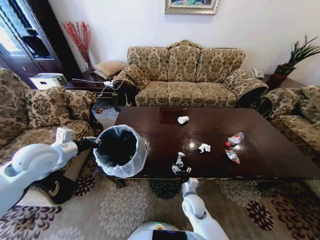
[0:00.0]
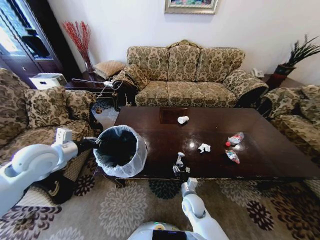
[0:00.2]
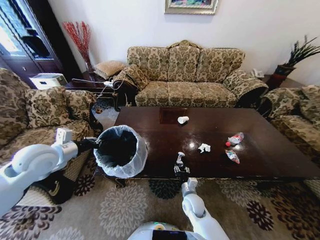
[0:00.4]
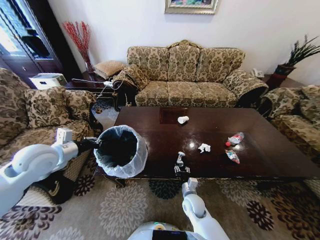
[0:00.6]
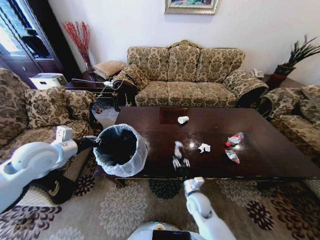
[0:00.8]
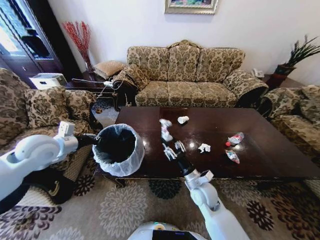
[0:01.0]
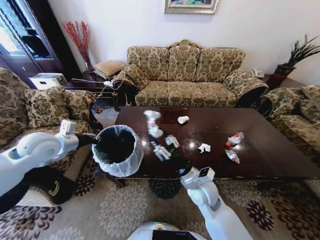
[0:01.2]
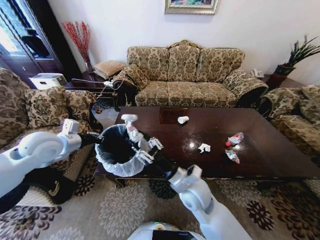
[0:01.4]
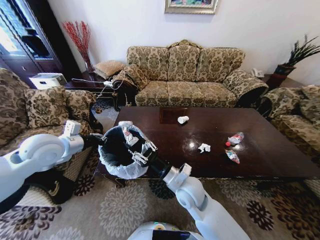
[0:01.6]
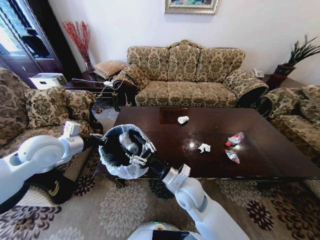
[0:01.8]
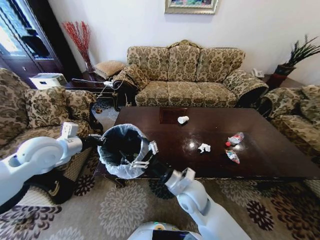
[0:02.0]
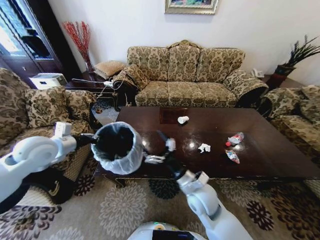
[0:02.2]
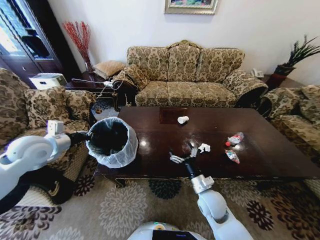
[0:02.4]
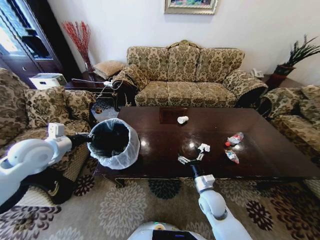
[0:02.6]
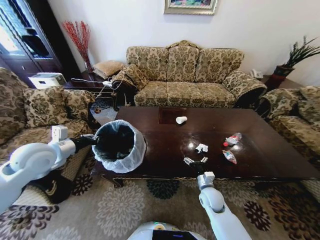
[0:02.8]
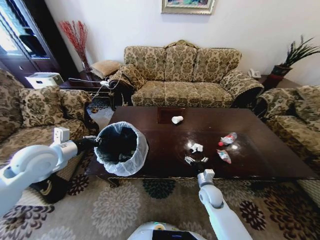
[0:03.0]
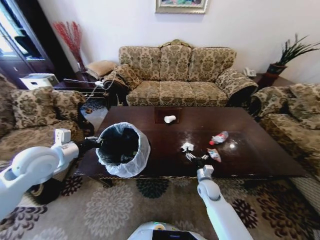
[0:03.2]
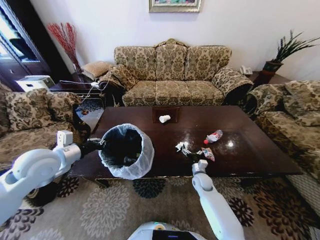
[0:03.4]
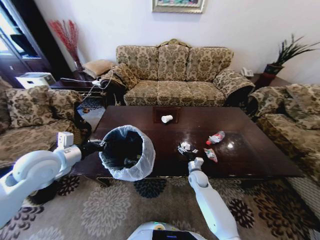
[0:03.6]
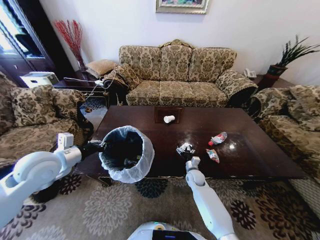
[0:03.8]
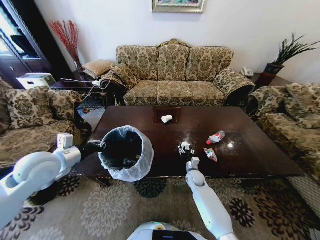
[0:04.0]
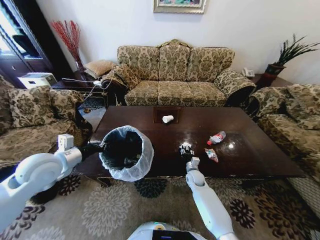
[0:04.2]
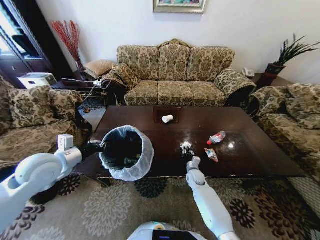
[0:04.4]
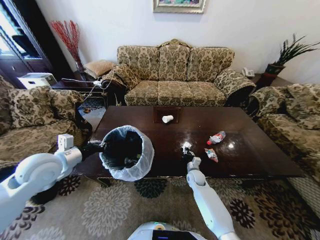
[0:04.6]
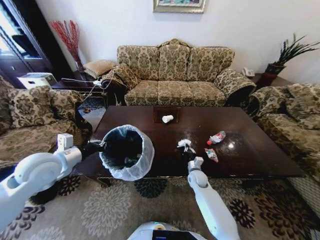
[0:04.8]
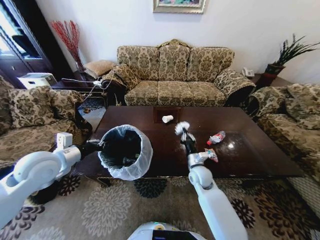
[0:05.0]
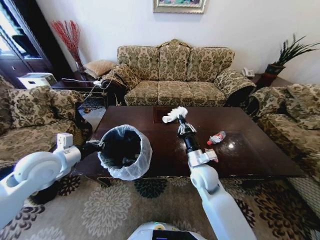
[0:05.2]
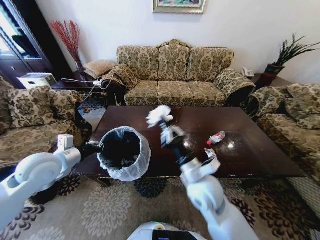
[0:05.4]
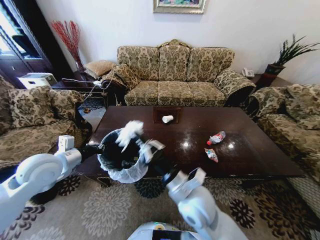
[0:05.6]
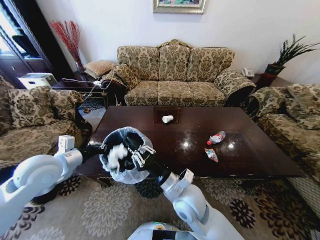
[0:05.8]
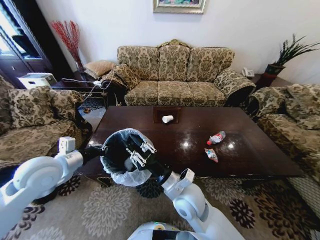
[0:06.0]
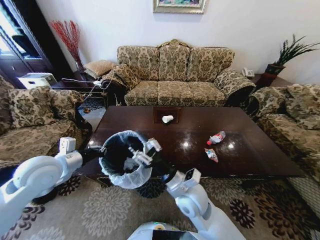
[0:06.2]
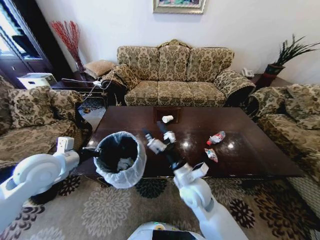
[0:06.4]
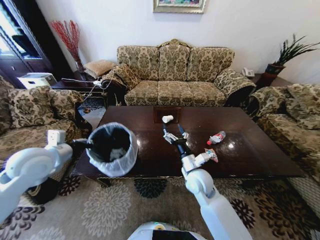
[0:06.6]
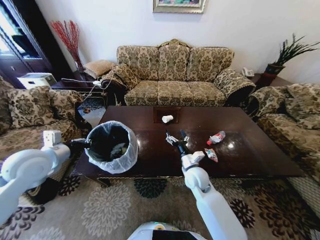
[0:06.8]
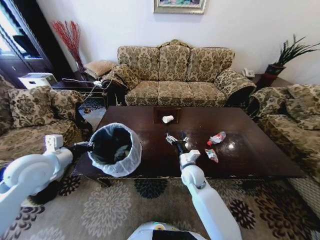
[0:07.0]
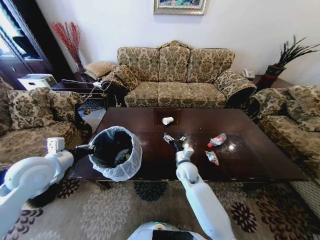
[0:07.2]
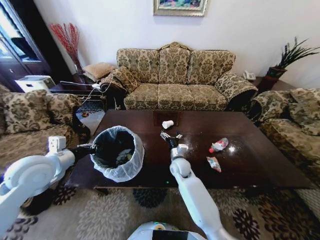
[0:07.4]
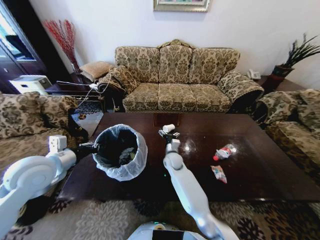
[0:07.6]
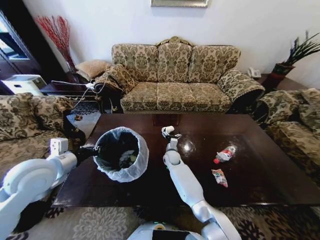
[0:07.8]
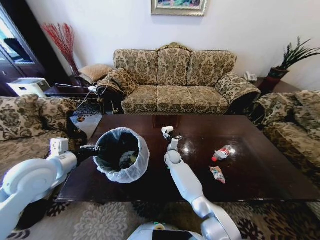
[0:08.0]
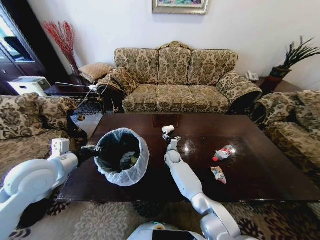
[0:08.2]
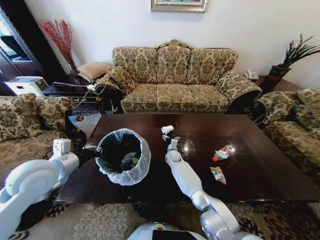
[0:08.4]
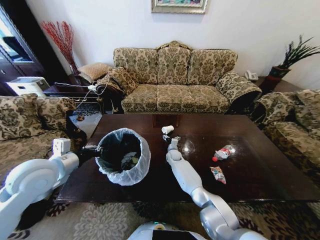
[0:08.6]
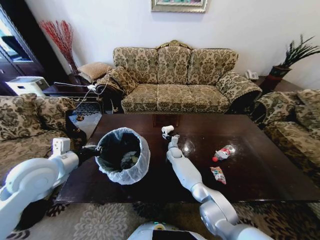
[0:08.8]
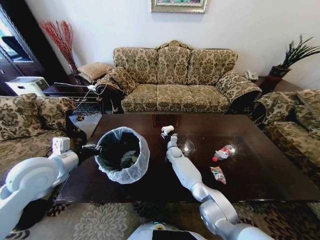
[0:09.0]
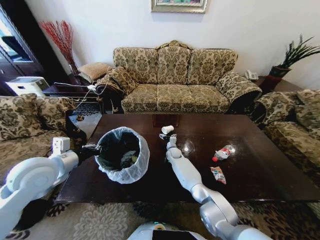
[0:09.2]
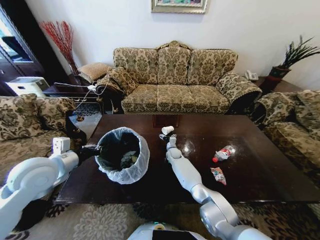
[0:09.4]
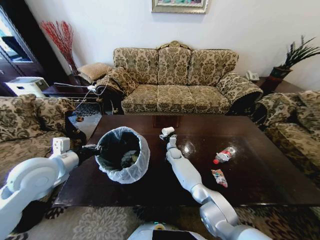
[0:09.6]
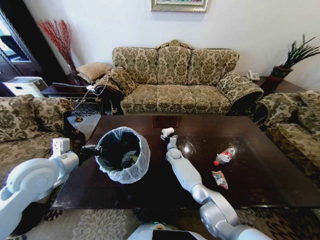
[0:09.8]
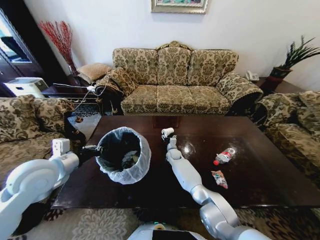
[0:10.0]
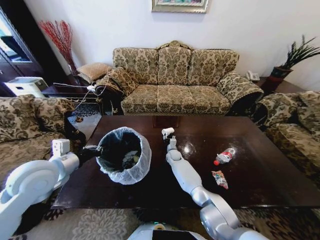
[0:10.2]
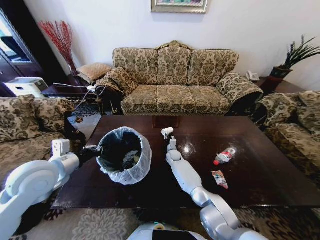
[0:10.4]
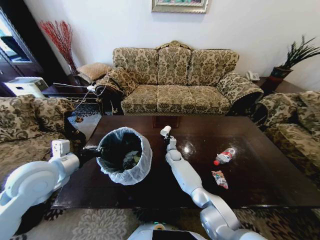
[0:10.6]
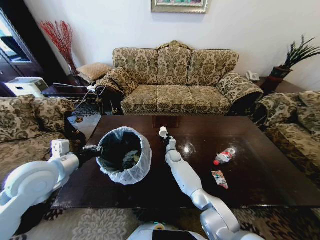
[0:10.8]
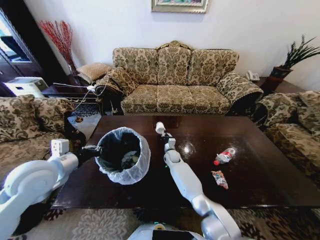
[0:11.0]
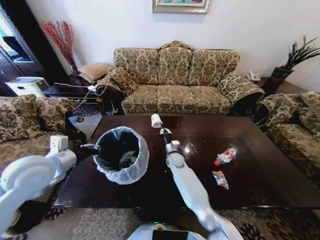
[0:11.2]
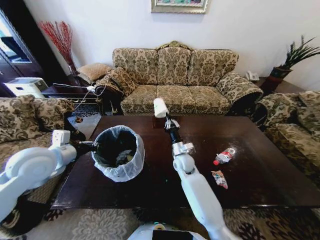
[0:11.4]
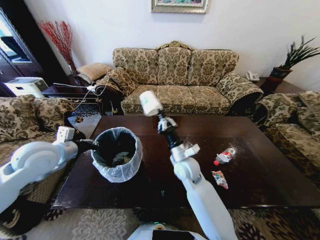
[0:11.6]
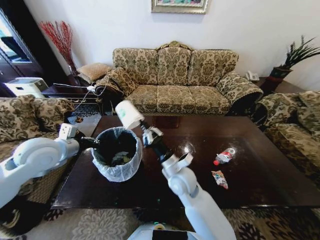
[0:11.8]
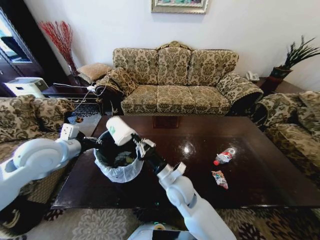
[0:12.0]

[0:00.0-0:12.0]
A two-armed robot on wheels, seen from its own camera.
Task of the whole recording: Move to the front of the table and place the trash on the table into the trash bin.
0:00.0 to 0:01.6: The right gripper heads upward, covering about 20 cm, and closes.
0:01.6 to 0:03.0: The right gripper shifts approximately 20 cm downward and to the right, and opens.
0:03.0 to 0:04.4: The right gripper travels forward by approximately 10 cm, and closes up.
0:04.4 to 0:06.0: The right gripper goes roughly 30 cm upward, backward and to the left.
0:06.0 to 0:07.6: The right gripper shifts about 25 cm forward and downward, and opens.
0:07.6 to 0:09.0: The right gripper shifts about 15 cm forward and downward.
0:09.0 to 0:10.4: The right gripper closes up.
0:10.4 to 0:12.0: The left gripper shifts by roughly 5 cm, while the right gripper goes approximately 30 cm backward and upward.

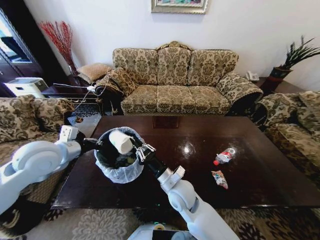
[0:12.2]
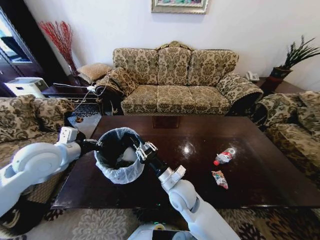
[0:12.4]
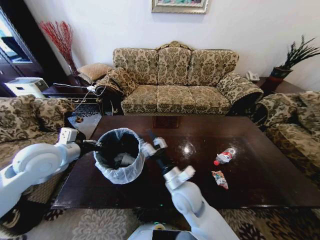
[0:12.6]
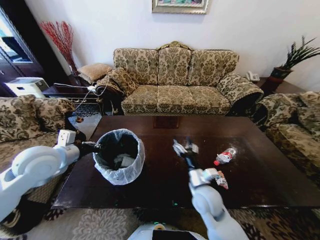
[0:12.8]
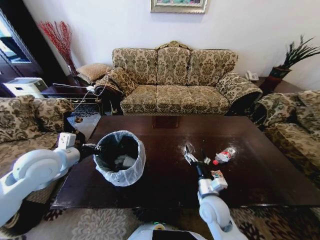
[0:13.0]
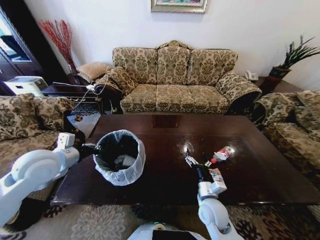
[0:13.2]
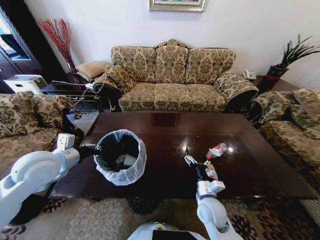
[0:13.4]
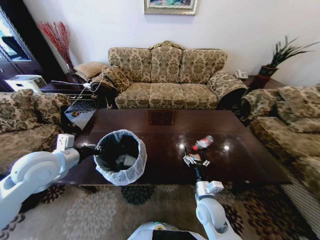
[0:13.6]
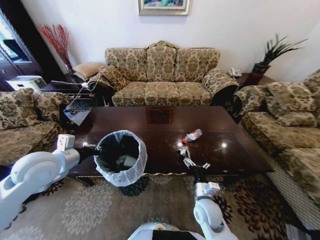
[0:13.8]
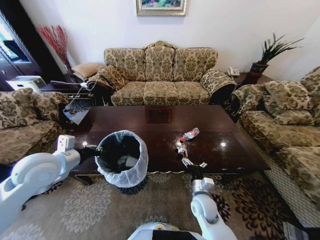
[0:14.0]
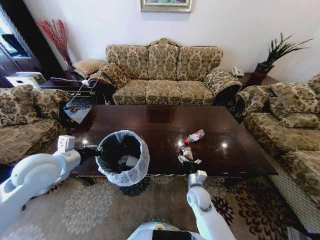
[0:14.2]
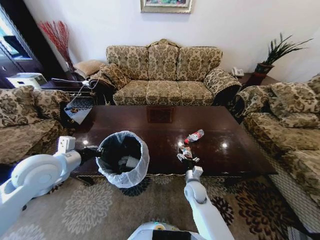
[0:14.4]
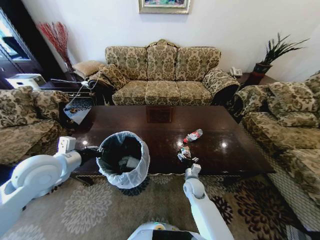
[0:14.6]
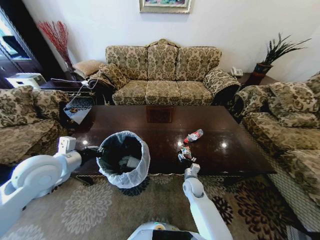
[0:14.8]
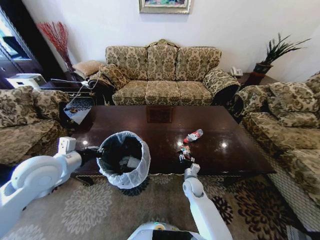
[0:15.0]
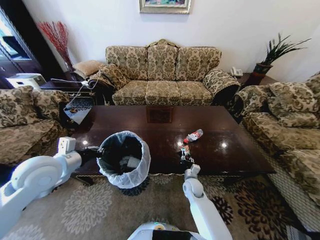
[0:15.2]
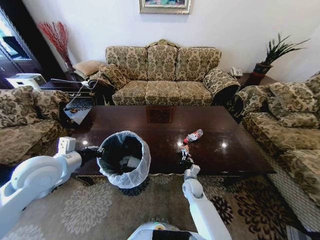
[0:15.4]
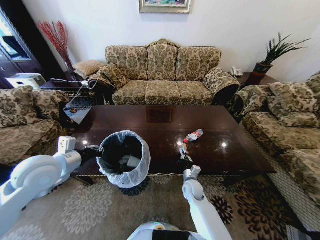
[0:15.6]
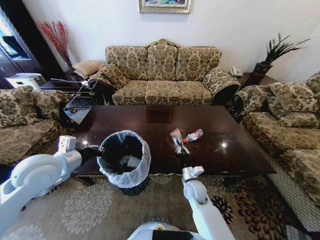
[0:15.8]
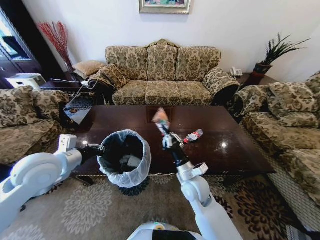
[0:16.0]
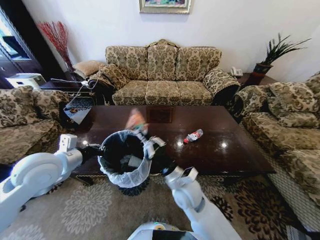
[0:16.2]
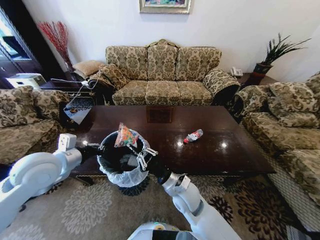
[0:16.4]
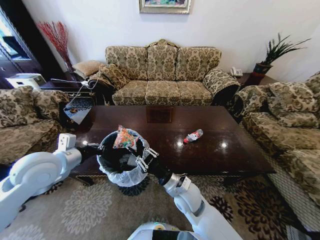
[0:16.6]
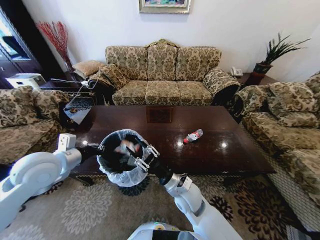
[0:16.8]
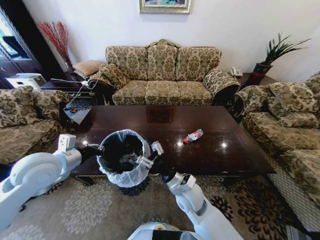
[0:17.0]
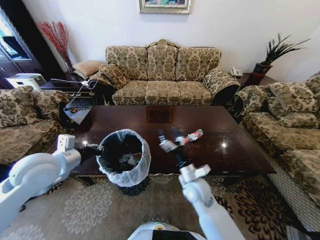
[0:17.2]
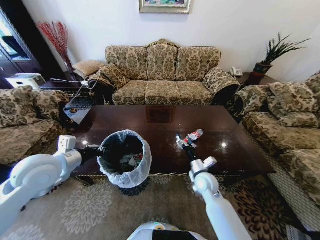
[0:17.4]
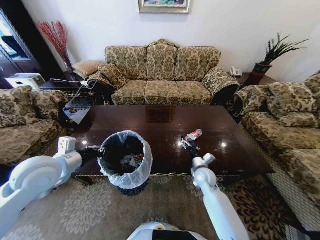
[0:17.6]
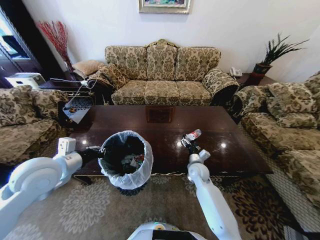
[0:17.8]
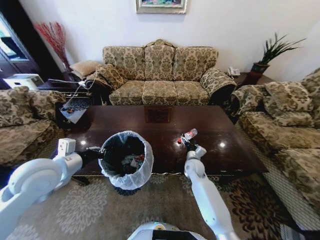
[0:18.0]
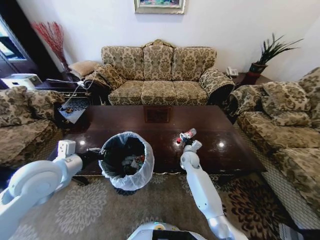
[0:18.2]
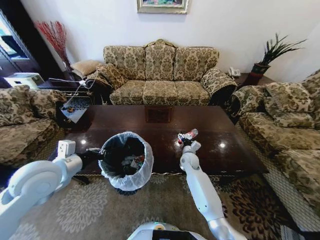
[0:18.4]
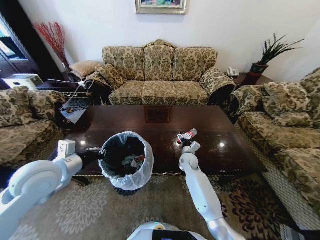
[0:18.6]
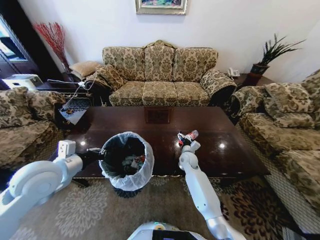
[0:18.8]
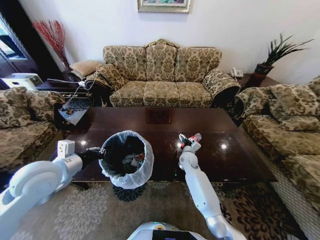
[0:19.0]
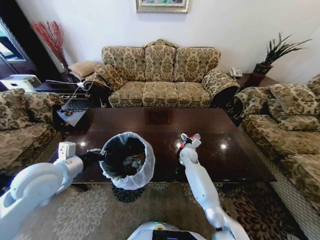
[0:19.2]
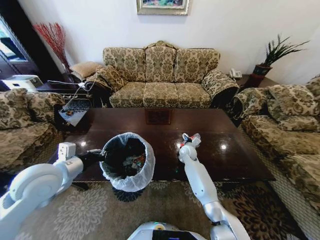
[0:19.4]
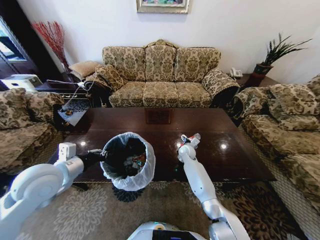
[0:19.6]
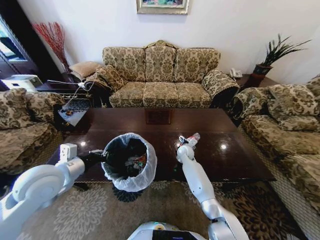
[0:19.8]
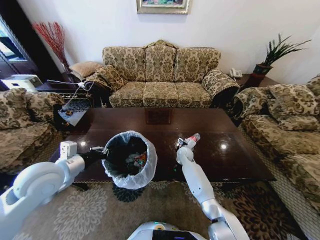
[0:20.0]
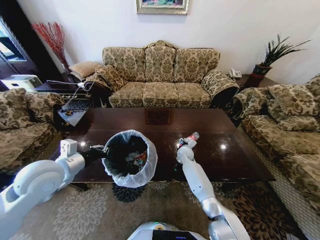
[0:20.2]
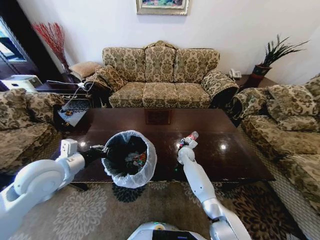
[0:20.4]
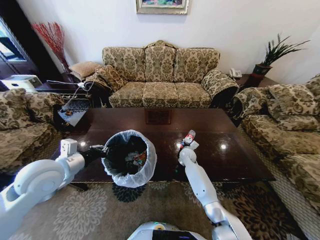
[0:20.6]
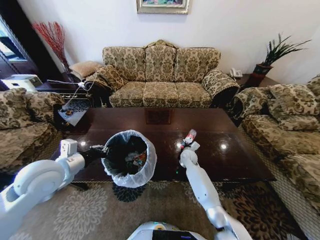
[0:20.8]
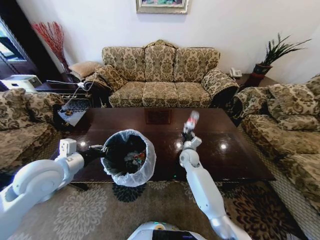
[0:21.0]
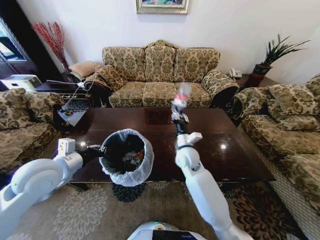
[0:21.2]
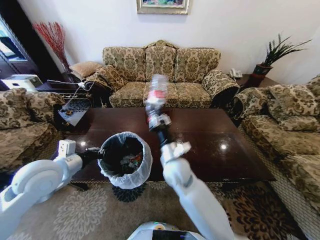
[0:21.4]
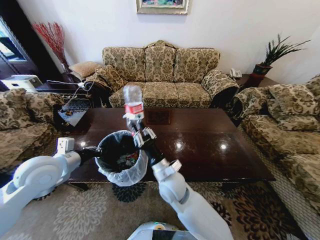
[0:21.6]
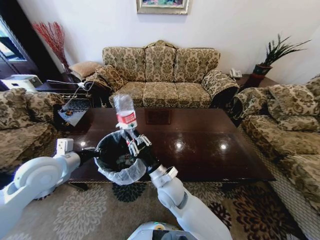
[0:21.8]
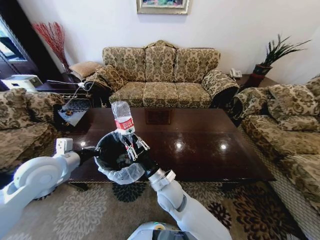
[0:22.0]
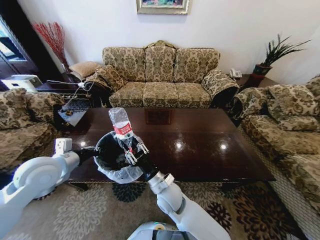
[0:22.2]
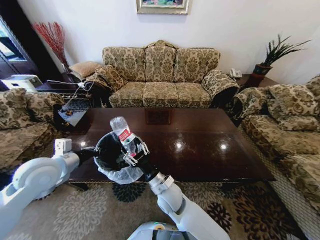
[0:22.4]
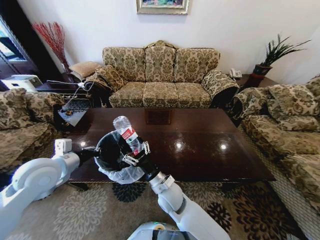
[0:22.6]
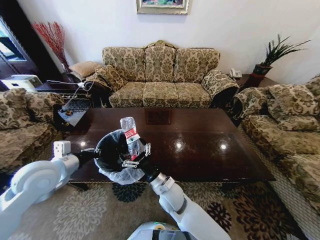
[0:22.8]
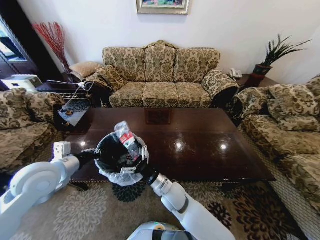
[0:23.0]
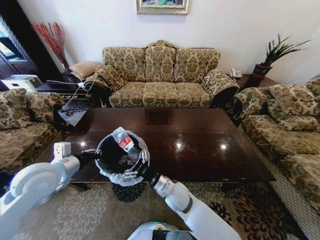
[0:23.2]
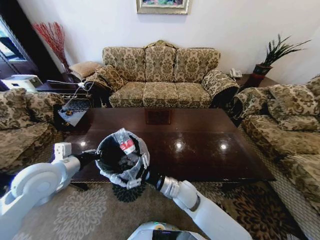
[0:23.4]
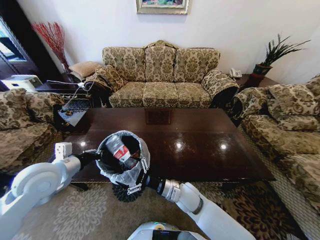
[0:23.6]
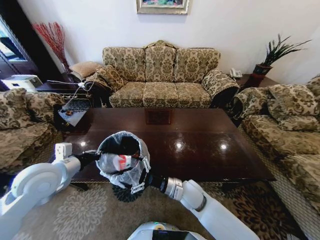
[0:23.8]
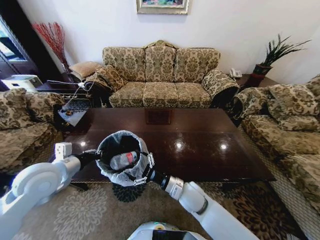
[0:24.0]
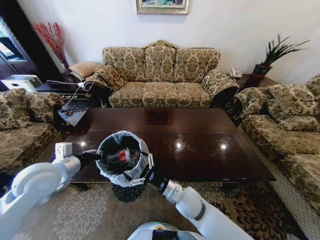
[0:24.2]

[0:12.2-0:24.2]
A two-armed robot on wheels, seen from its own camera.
Task of the whole recording: Move to the front of the table and place the trash on the table into the trash bin.
0:12.2 to 0:13.8: The right gripper goes about 15 cm to the right and downward, and opens up.
0:13.8 to 0:15.2: The right gripper moves forward and downward, about 15 cm, and closes.
0:15.2 to 0:16.6: The right gripper moves upward, backward and to the left, some 20 cm.
0:16.6 to 0:18.2: The right gripper is displaced forward by some 20 cm, and opens its fingers.
0:18.2 to 0:19.8: The right gripper goes roughly 5 cm forward.
0:19.8 to 0:21.2: The right gripper shifts approximately 15 cm upward and backward, and closes up.
0:21.2 to 0:22.6: The right gripper is displaced backward, to the left and downward by approximately 15 cm, and opens up.
0:22.6 to 0:24.2: The right gripper travels to the right by approximately 5 cm.
